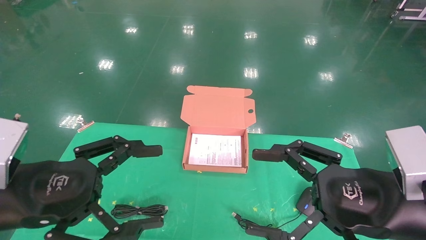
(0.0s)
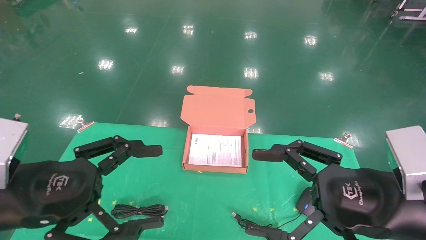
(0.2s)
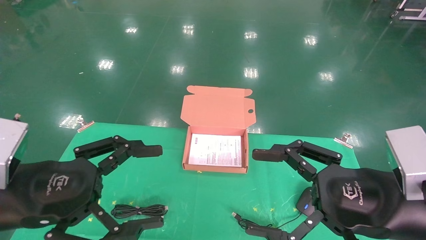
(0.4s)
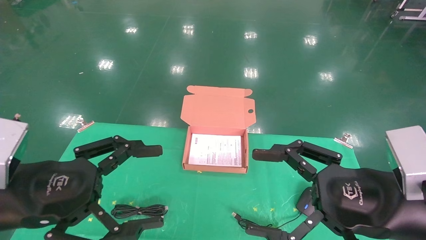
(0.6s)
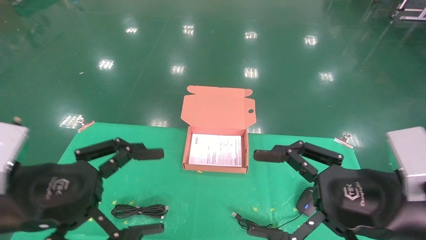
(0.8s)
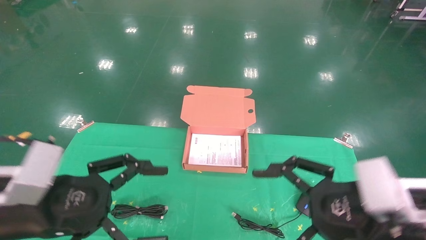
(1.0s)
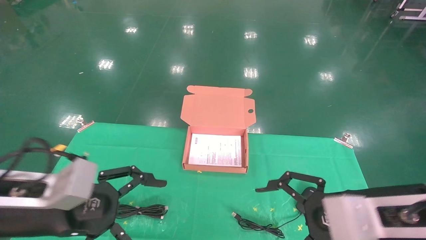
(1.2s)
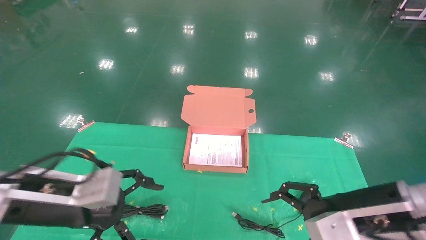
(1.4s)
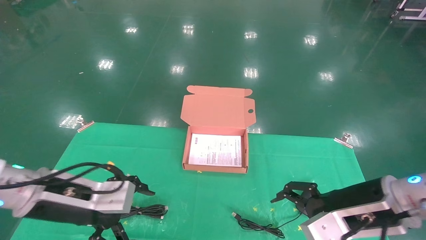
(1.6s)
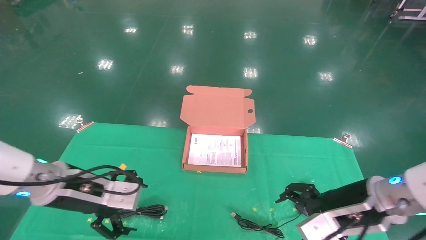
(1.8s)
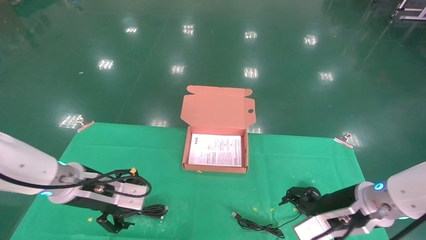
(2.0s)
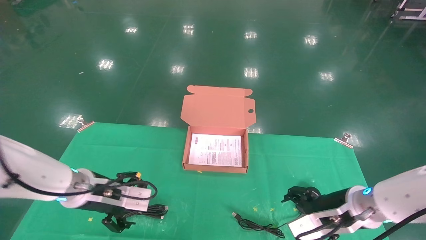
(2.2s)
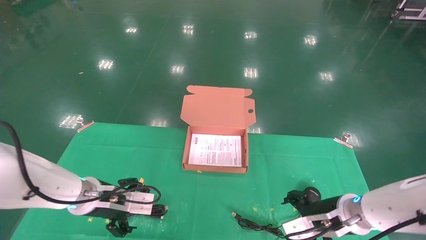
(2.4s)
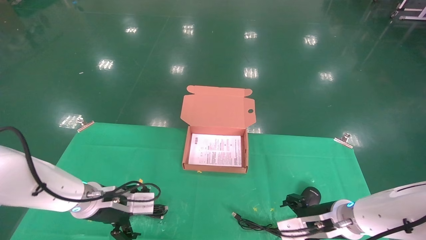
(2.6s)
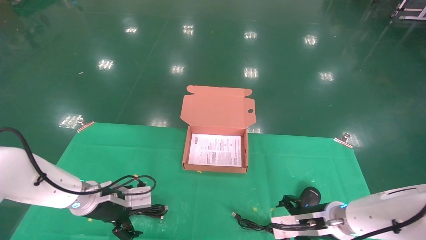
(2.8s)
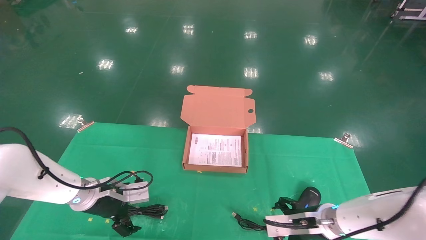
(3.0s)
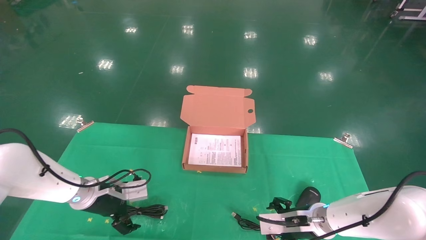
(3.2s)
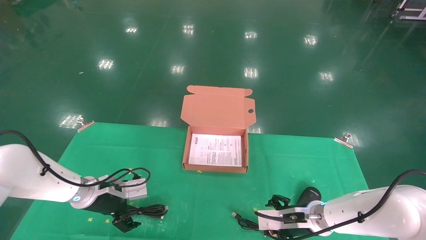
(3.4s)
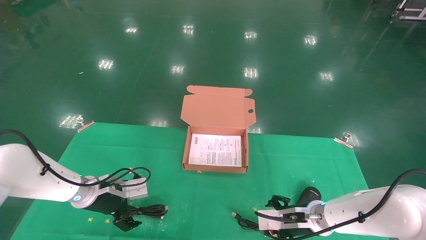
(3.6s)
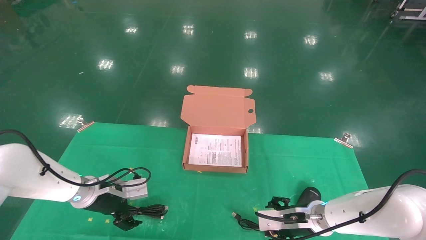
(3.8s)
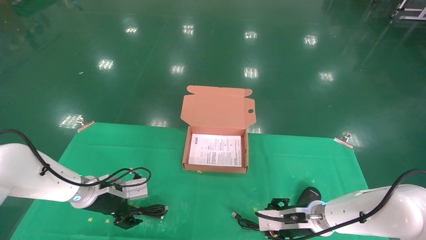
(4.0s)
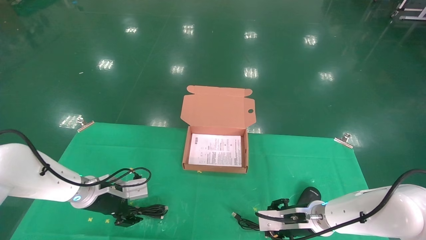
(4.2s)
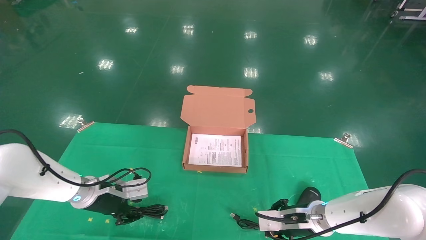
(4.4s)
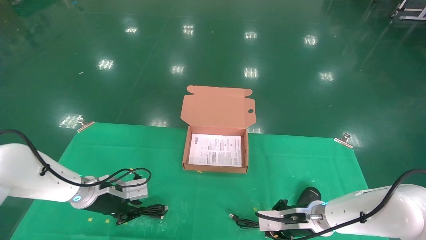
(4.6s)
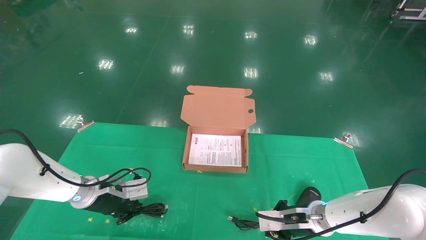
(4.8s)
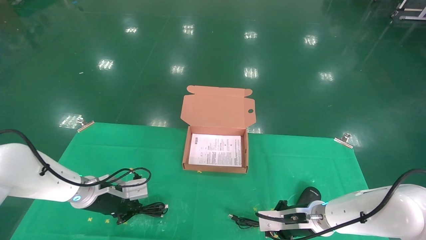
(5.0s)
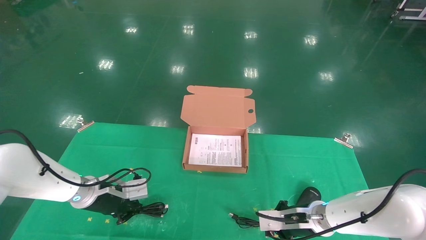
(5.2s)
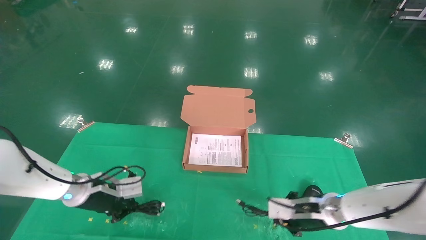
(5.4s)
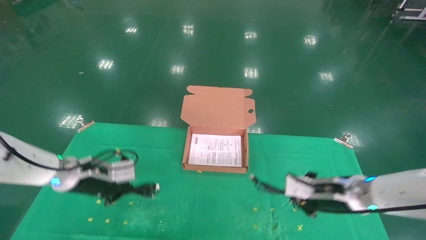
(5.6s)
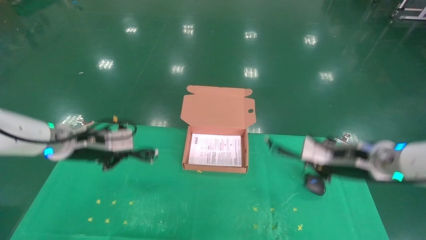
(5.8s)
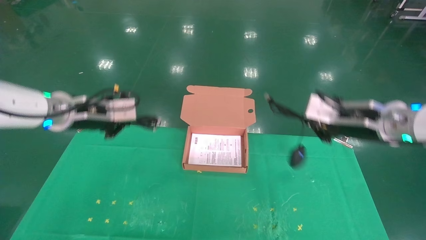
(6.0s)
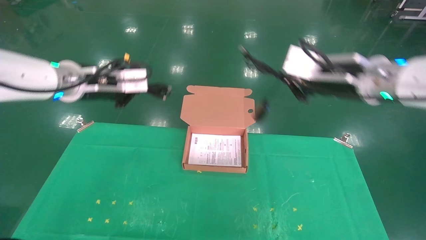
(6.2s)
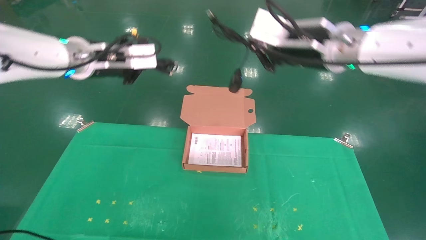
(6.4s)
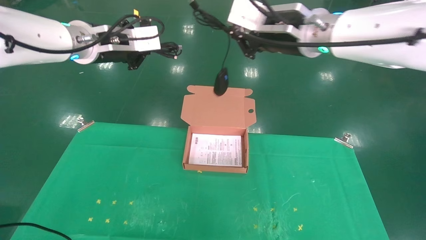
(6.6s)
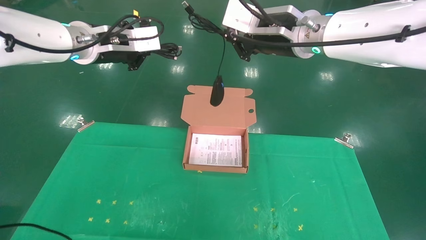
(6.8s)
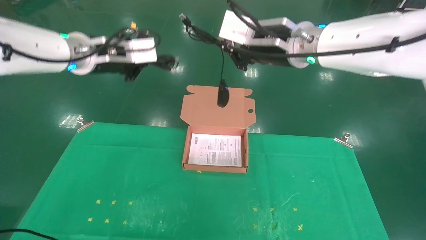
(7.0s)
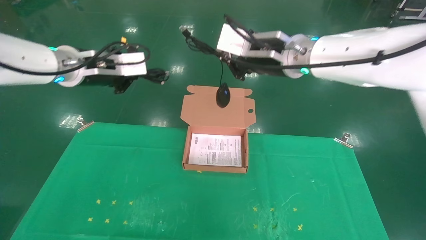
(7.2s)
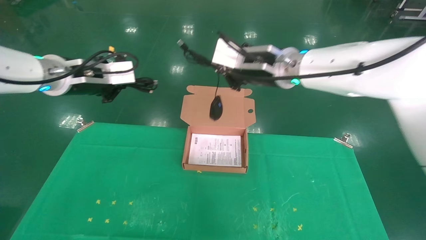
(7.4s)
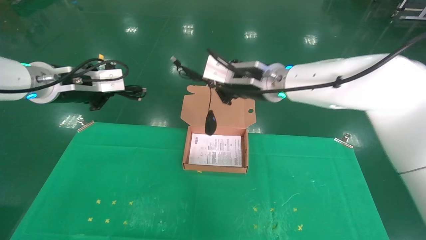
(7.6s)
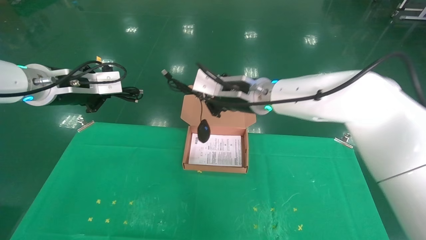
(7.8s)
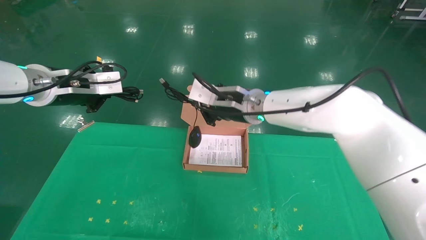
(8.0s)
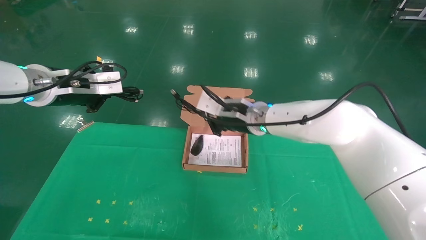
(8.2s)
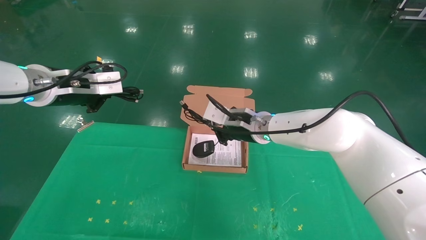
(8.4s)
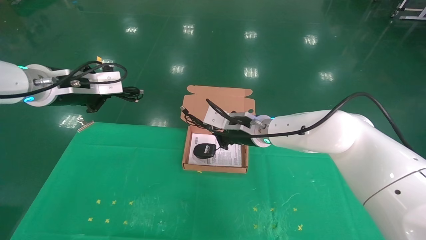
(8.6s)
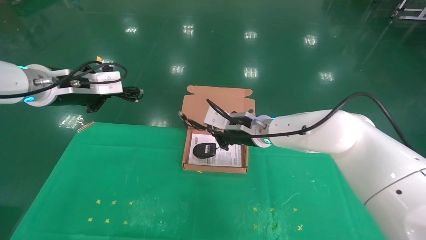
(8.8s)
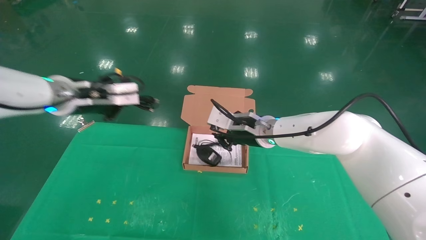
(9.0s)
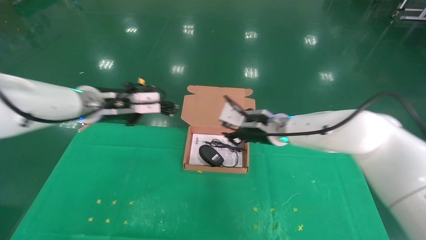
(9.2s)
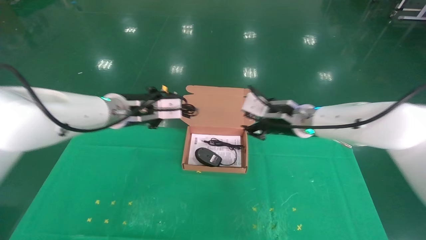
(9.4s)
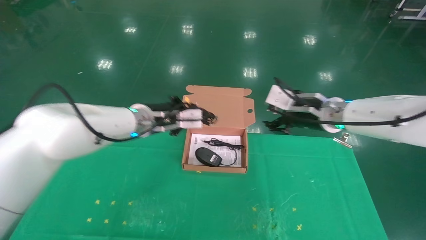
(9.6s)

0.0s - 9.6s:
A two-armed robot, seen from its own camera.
Task of the whole recording: grasp data cable left put into box grasp mouse right put into box.
Step, 0.8s - 5.6s: Grab and pick up both the mouse and power cord from the accessory packaging area at the same time.
0.0s - 1.6s: Both grippers move forward, approximately 10 cm.
1.6s - 3.2s: The right gripper travels downward and forward by some 20 cm; the left gripper heads forward and downward, covering roughly 15 cm.
3.2s - 4.8s: The left gripper closes; the right gripper closes up.
4.8s - 6.4s: The two grippers go roughly 30 cm upward.
6.4s - 8.0s: The right gripper travels to the left, downward and forward by approximately 15 cm; the left gripper travels to the left by roughly 5 cm.
8.0s - 9.6s: The right gripper moves to the right, about 15 cm, and opens; the left gripper is displaced to the right, downward and forward by approximately 20 cm.

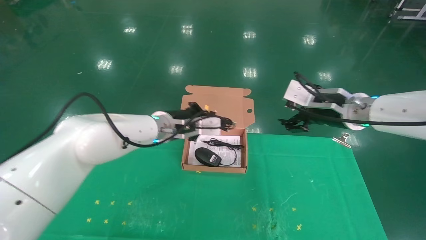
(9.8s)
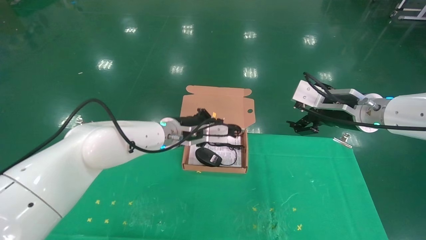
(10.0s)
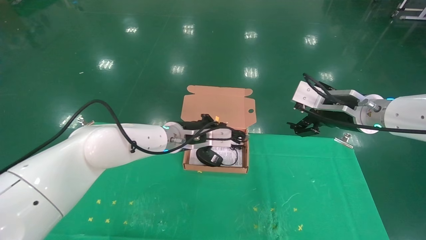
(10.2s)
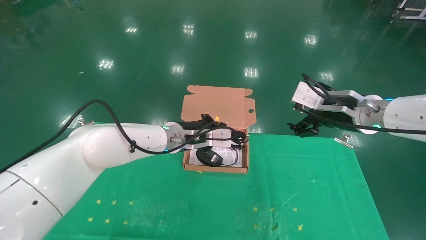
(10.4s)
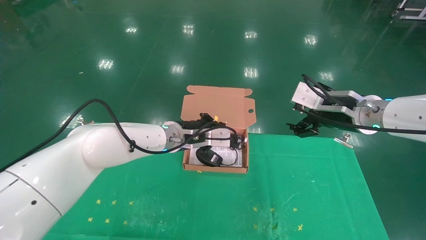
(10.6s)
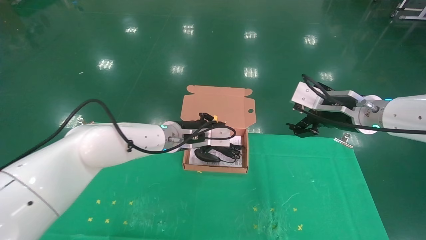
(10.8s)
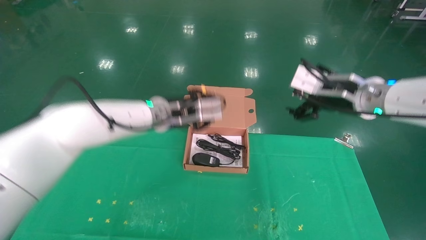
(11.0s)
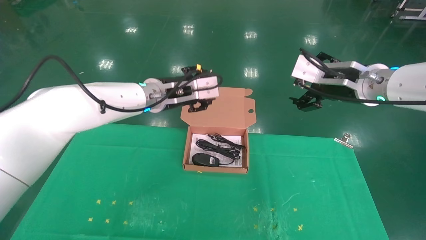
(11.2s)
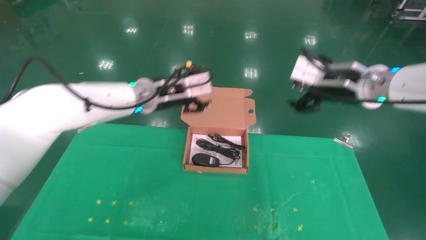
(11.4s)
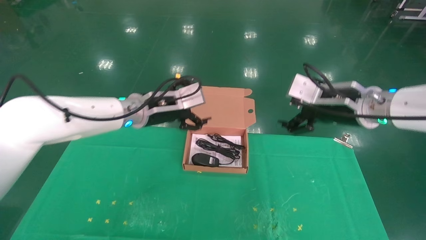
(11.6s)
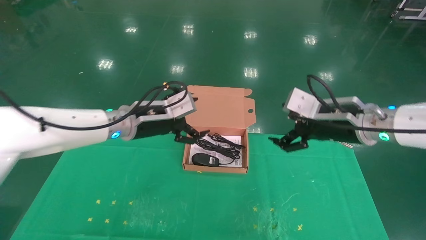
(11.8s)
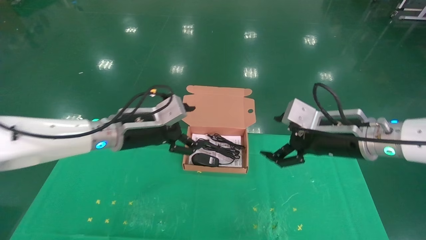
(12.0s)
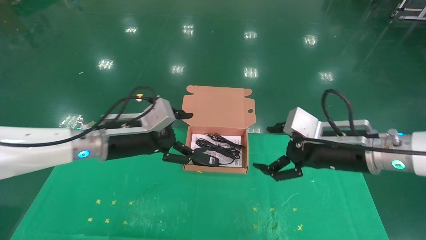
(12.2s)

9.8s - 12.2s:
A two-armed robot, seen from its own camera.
Task of the whole recording: grasp data cable left put into box grasp mouse right put into box.
11.0s - 12.2s: The right gripper goes some 10 cm downward and backward. Meanwhile the left gripper heads to the left and backward, covering some 10 cm, and opens up.
